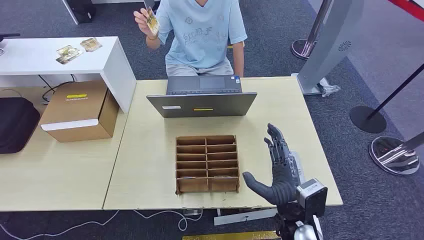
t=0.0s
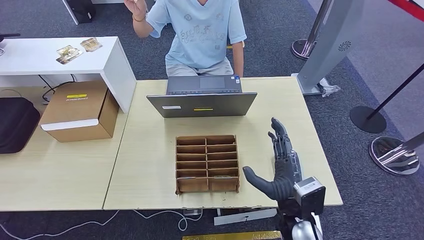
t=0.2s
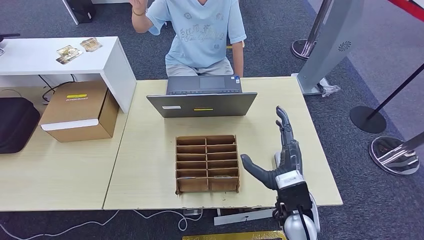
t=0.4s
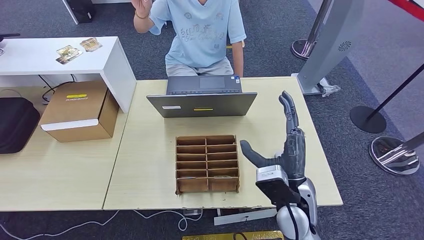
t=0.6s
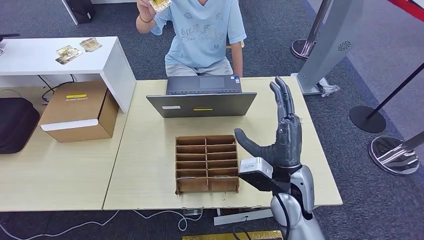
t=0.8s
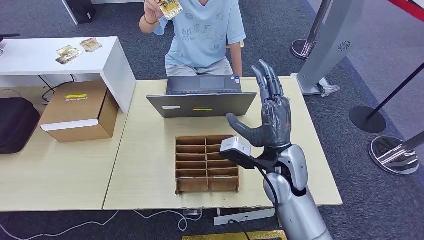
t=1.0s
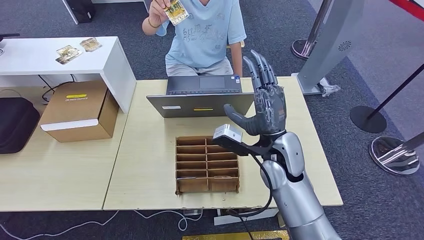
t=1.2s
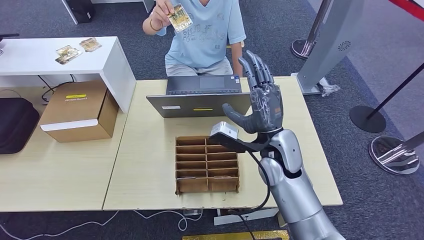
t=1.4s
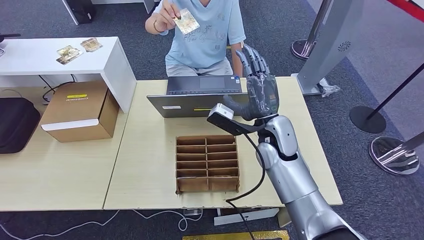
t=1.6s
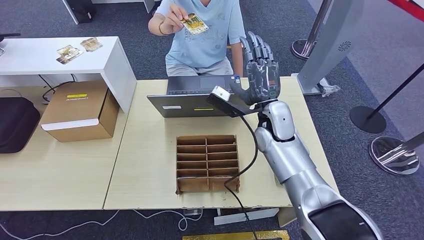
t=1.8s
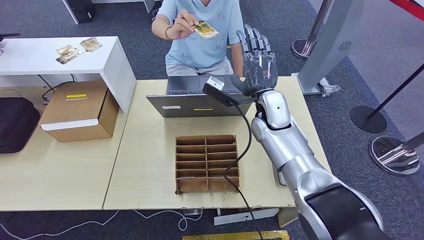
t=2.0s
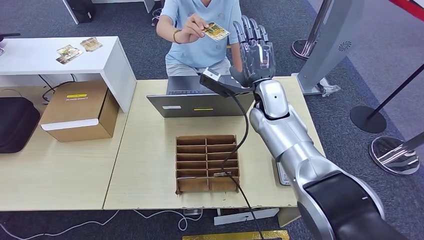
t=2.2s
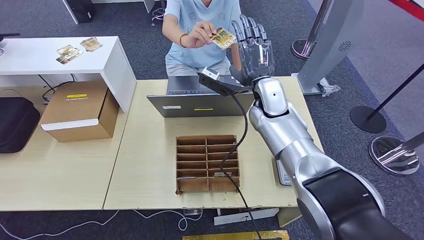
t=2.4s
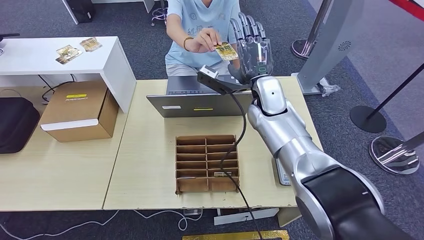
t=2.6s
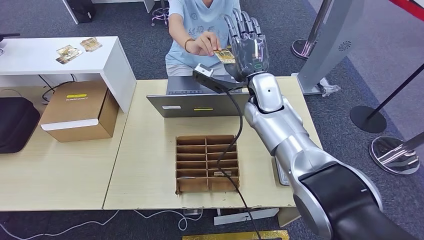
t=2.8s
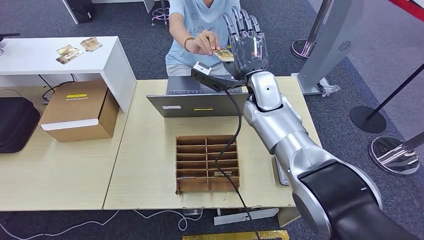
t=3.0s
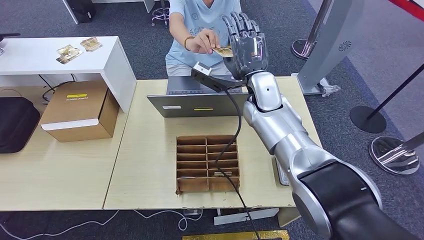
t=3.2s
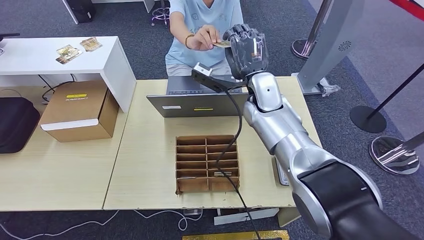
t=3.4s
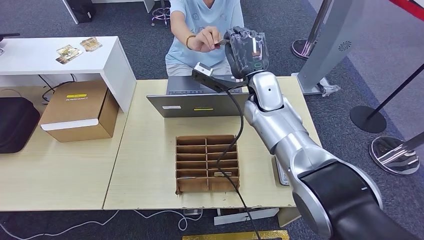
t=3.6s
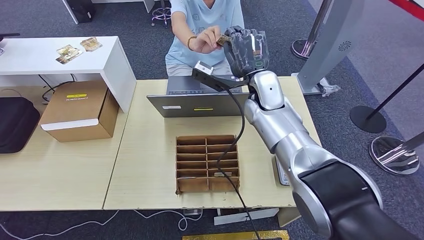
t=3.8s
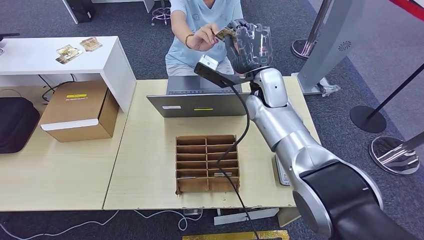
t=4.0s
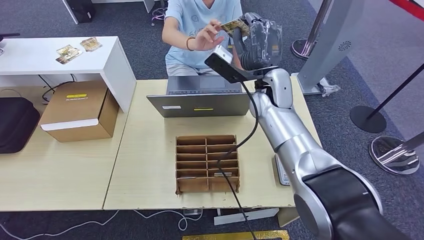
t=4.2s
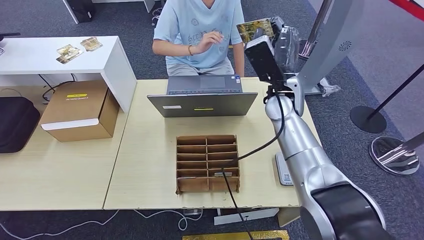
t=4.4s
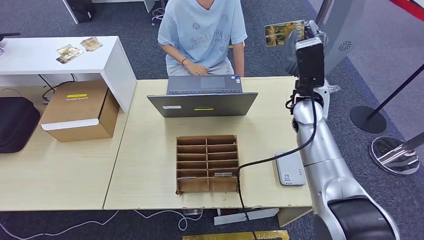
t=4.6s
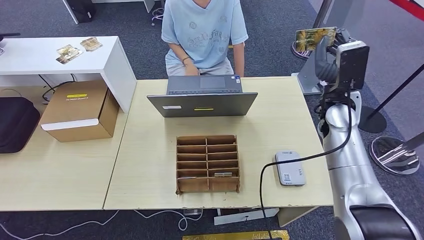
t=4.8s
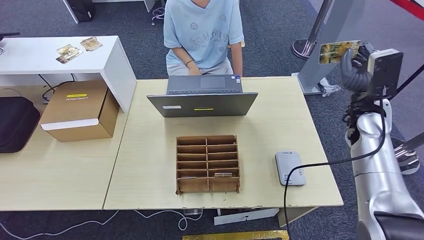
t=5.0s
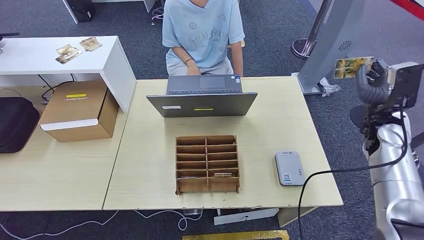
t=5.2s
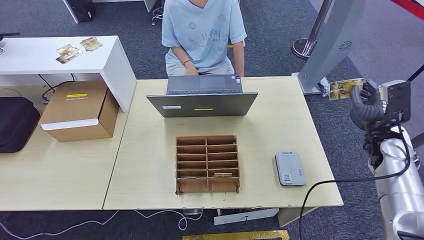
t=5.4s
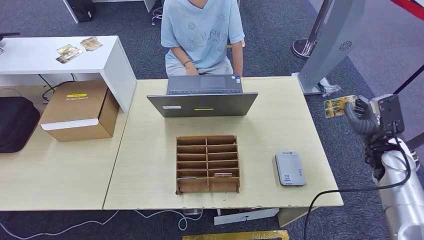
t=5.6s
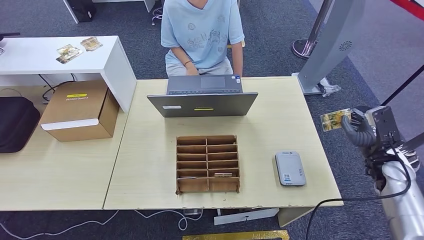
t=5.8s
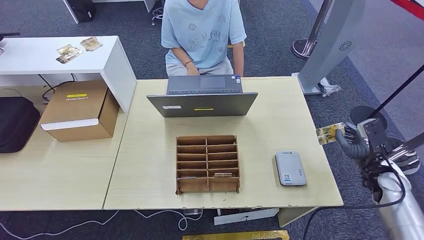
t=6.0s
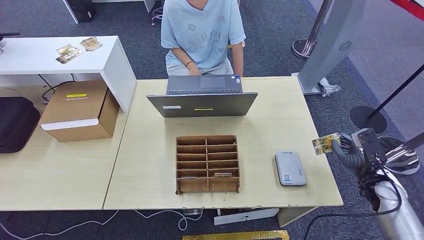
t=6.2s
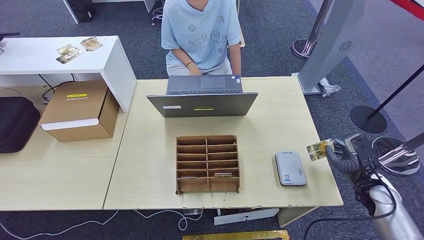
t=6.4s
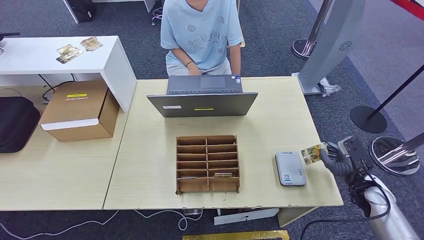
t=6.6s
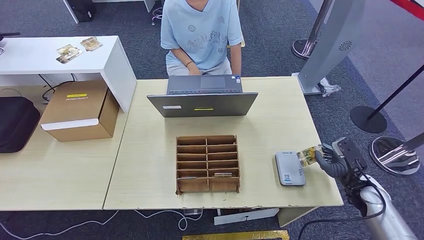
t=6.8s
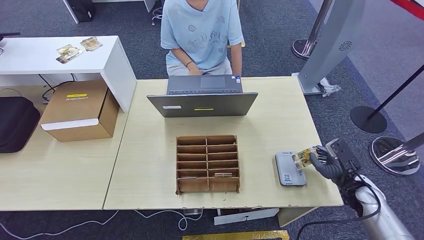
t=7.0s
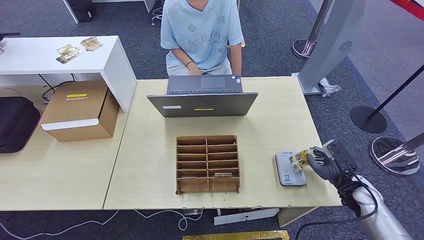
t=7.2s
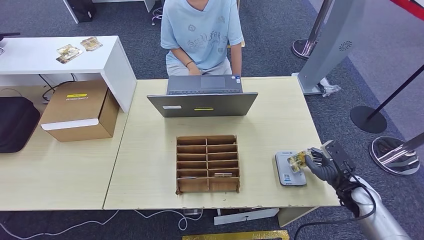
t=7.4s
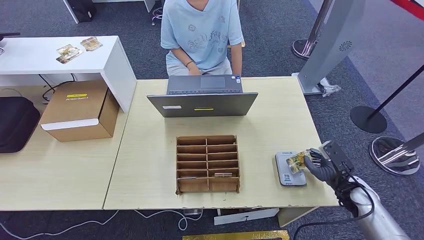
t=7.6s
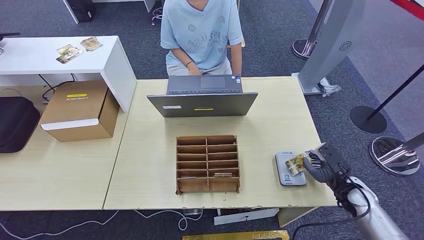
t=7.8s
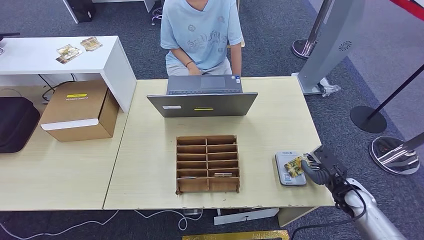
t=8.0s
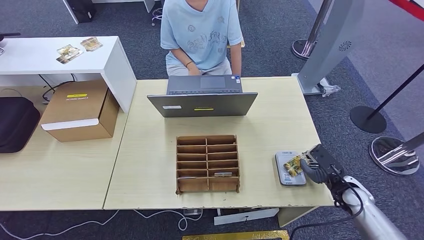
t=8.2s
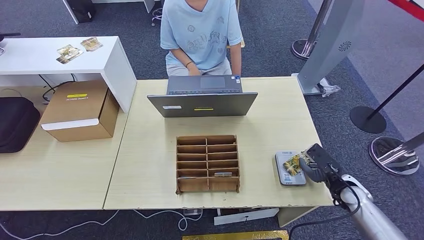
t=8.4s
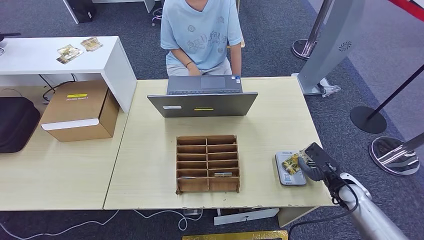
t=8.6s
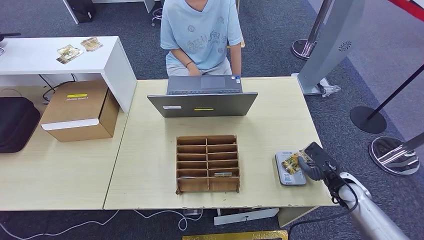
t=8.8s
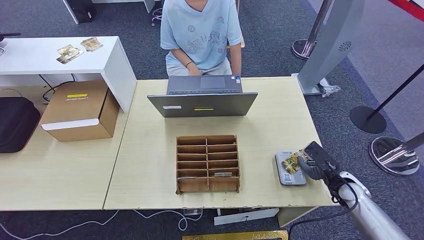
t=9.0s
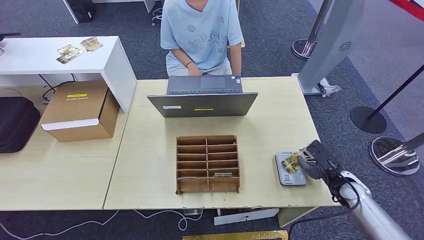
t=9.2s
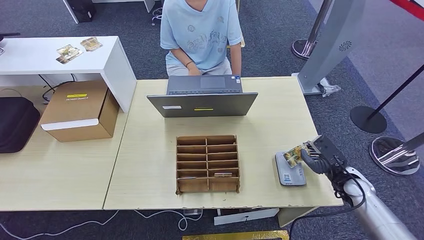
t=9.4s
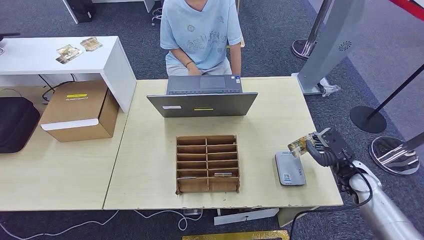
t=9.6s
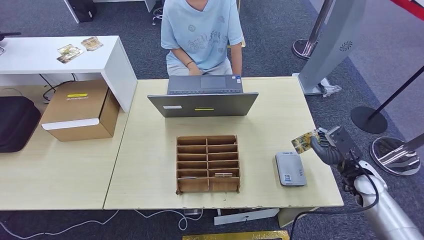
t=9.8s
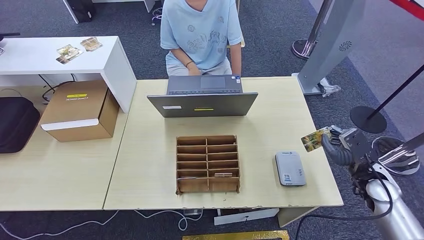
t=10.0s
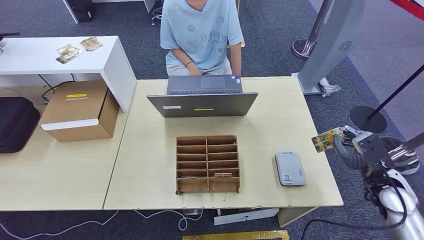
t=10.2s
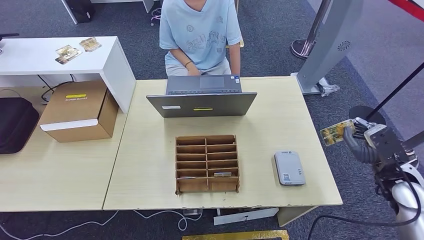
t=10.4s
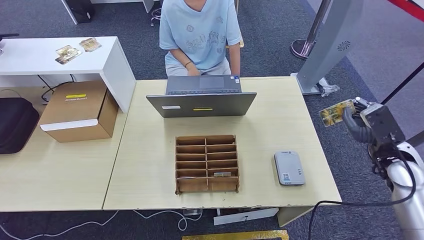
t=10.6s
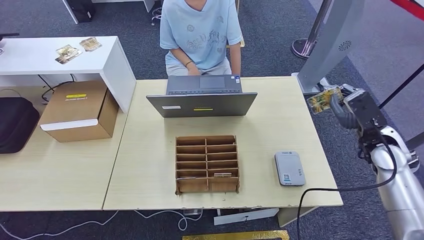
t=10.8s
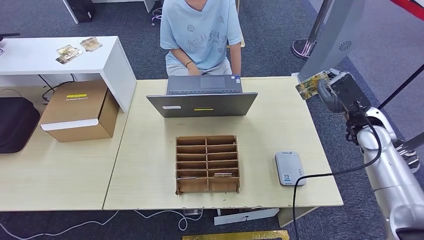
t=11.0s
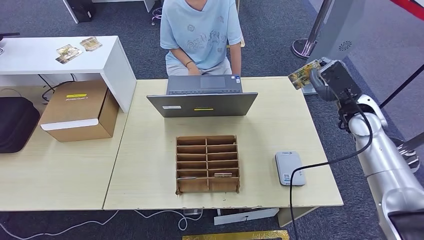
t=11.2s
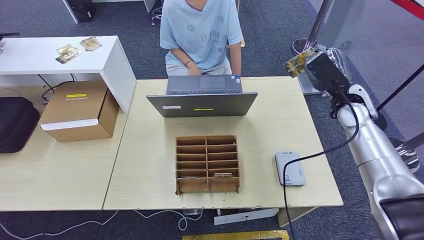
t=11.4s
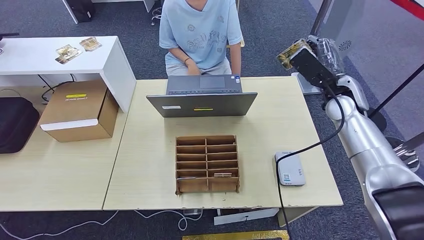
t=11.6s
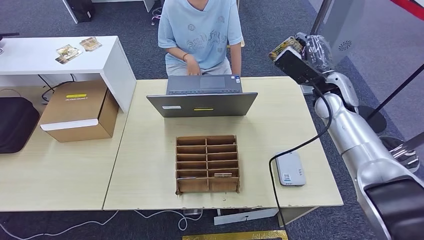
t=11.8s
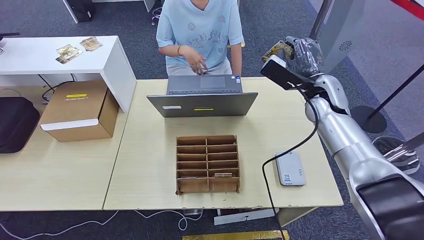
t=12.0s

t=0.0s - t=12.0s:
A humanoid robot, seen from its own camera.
Step, t=0.0s - t=4.4s: Take the ID card from the person's hand.
Step, t=4.6s - t=8.8s: Place the ID card on the card reader.
t=1.6s - t=3.0s: The right hand goes approximately 10 cm forward and upward.
t=4.4s - t=6.0s: The right hand travels to the right, downward and backward by some 35 cm.
t=6.0s - t=7.6s: The right hand is displaced downward by some 5 cm.
t=7.6s - t=9.0s: The hands stay close to where they were, moving slightly.
t=9.0s - t=10.4s: The right hand shifts some 10 cm upward.
t=10.4s - t=12.0s: The right hand shifts about 25 cm forward, to the left and upward.

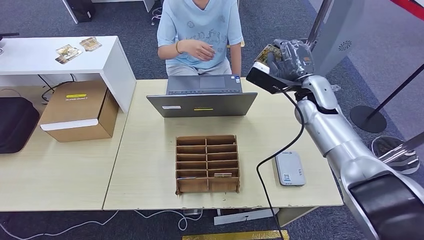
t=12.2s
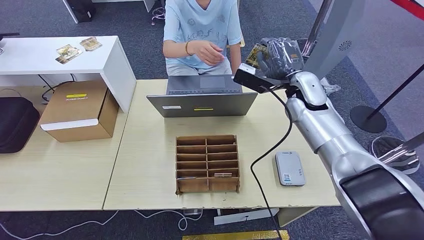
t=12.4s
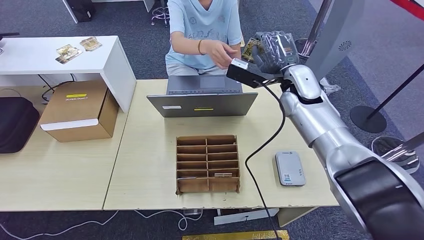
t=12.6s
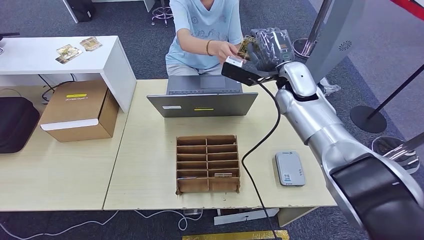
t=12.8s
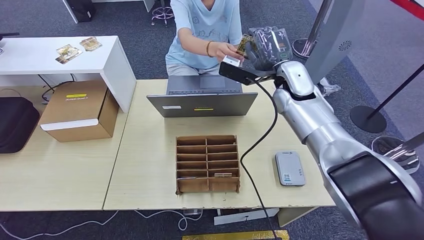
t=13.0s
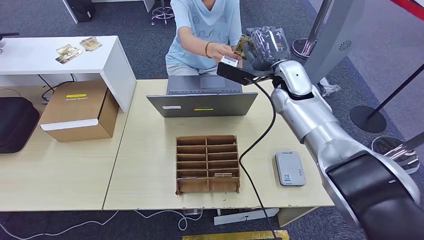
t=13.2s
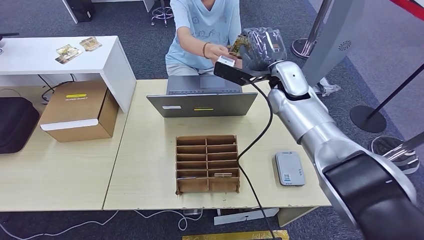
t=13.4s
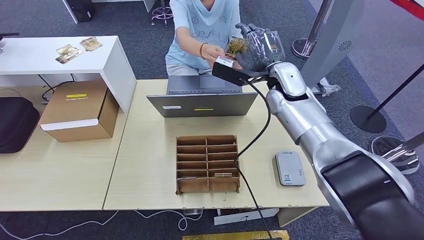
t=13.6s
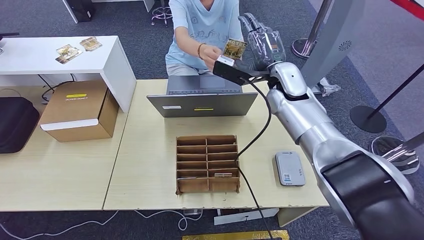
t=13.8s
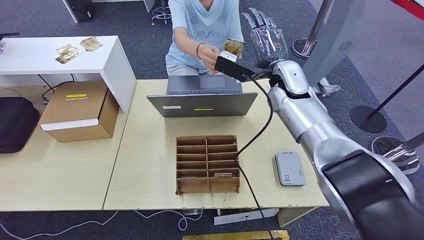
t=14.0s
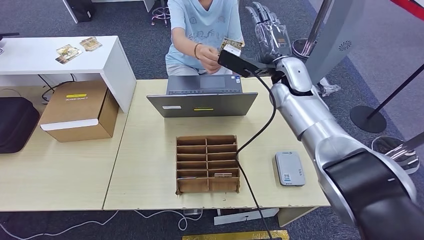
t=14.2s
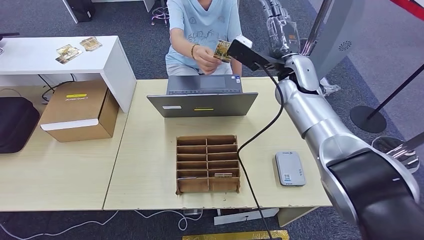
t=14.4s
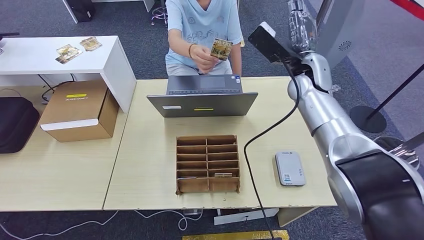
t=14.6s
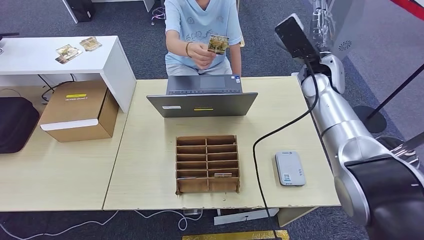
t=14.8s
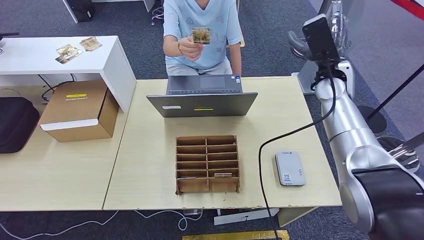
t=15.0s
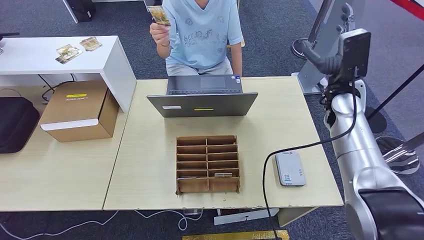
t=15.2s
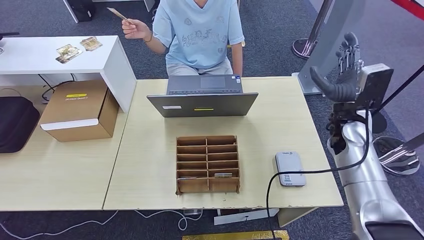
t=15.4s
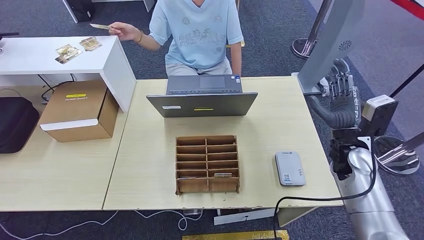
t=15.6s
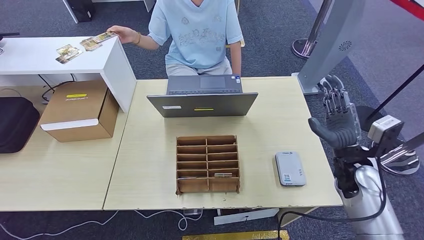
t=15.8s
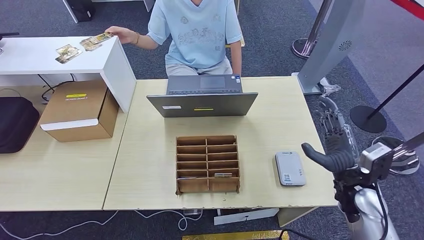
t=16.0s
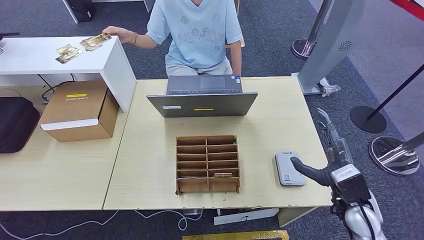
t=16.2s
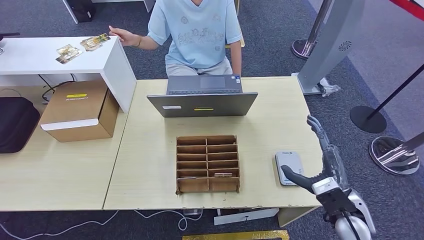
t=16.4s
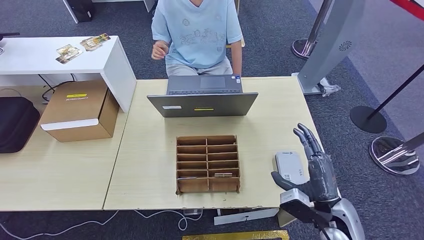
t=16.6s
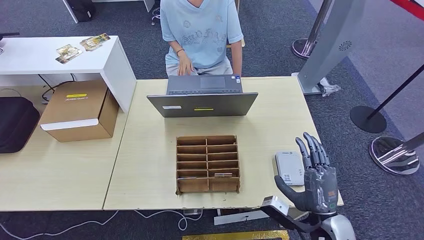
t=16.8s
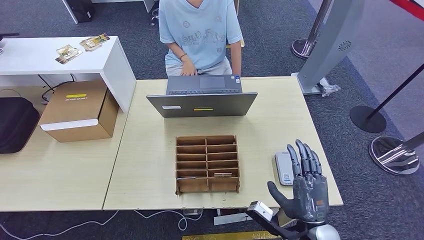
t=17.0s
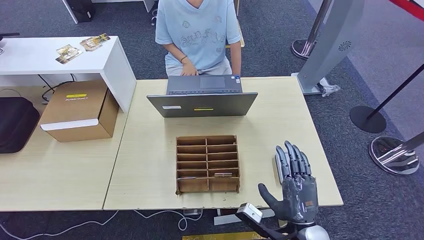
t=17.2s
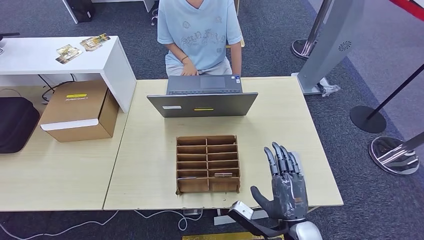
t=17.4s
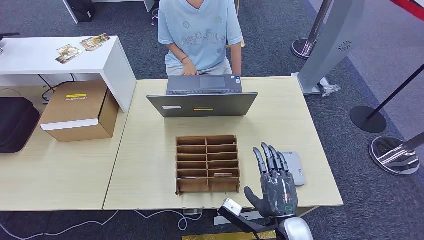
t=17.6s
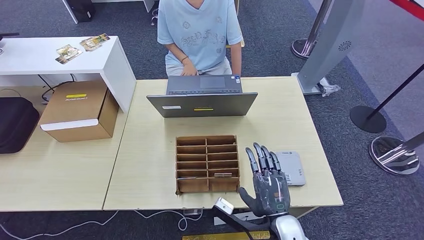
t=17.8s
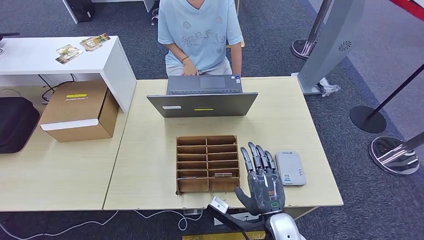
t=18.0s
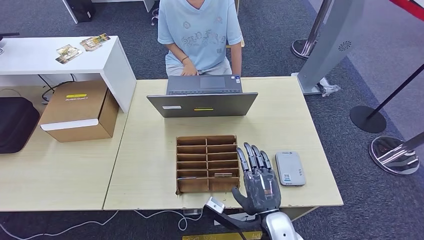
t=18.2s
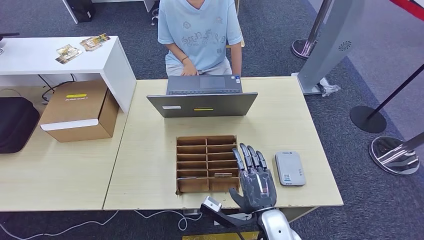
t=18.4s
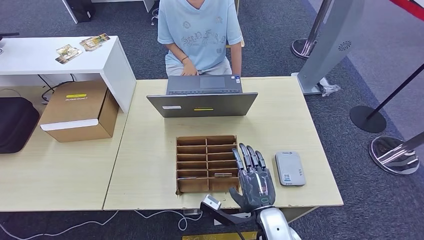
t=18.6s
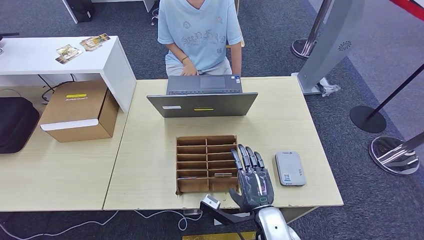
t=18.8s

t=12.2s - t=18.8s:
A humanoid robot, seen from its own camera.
Step, t=12.2s - t=14.4s: Hand the ID card to the person.
t=12.2s - t=13.8s: The right hand is displaced to the left by roughly 10 cm.
t=13.8s - t=15.4s: The right hand moves to the right, backward and downward, some 20 cm.
t=15.4s - t=17.2s: The right hand is displaced backward, to the left and downward by some 30 cm.
t=17.2s - t=18.8s: The right hand goes about 5 cm to the left.
